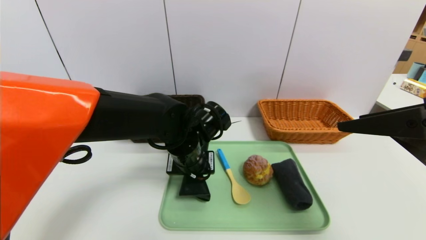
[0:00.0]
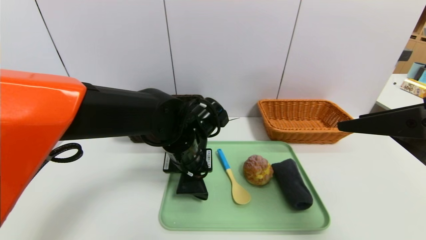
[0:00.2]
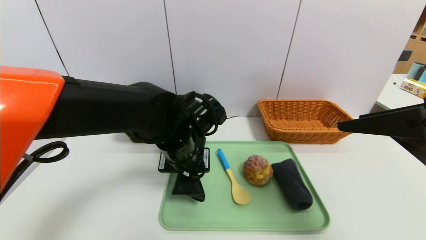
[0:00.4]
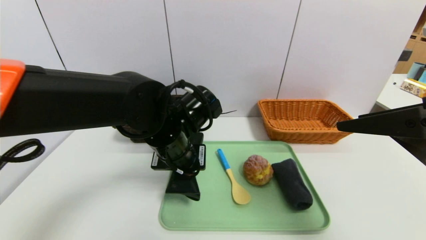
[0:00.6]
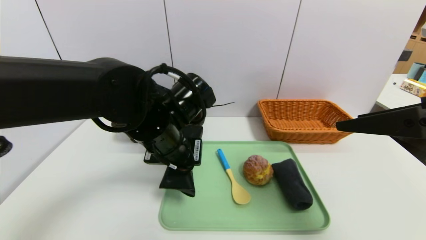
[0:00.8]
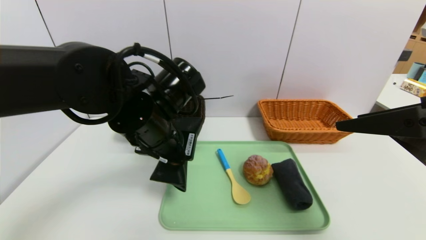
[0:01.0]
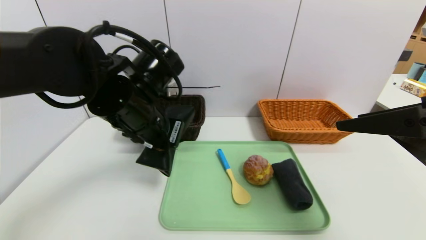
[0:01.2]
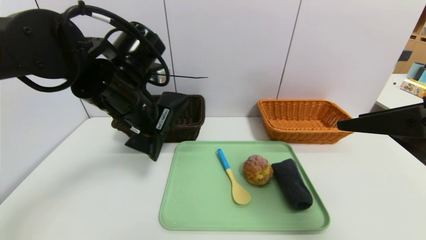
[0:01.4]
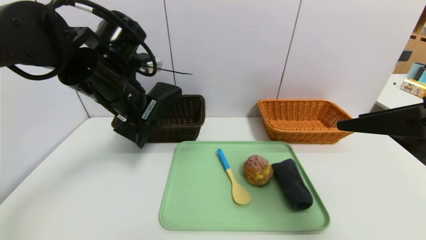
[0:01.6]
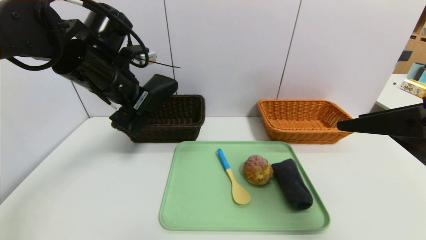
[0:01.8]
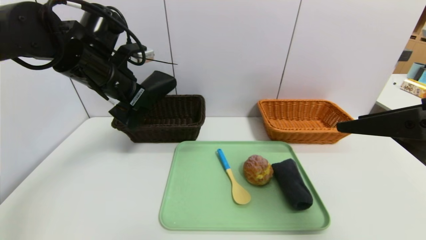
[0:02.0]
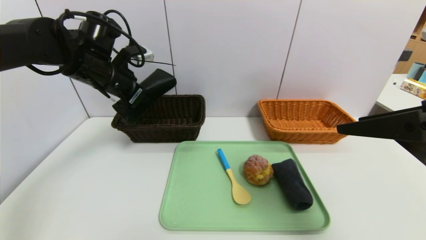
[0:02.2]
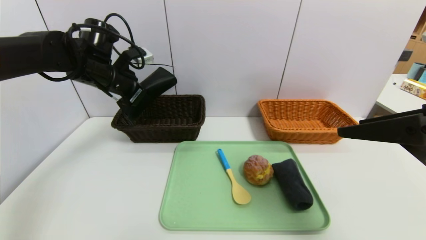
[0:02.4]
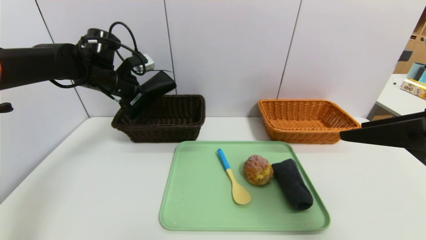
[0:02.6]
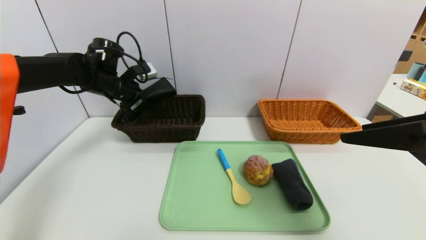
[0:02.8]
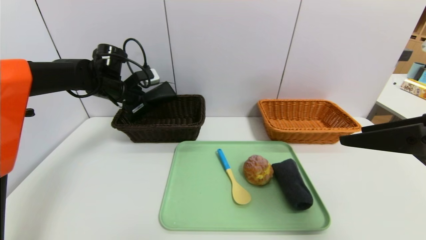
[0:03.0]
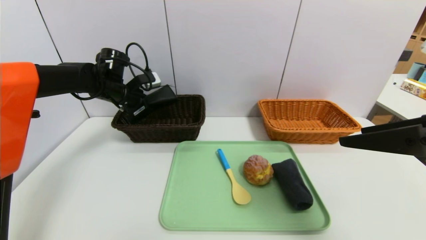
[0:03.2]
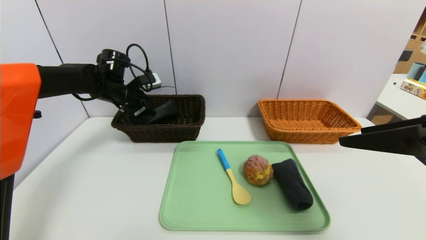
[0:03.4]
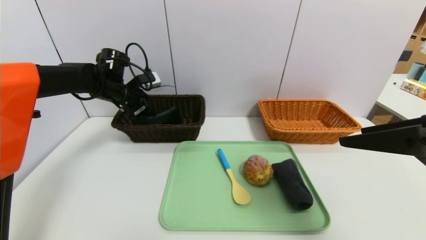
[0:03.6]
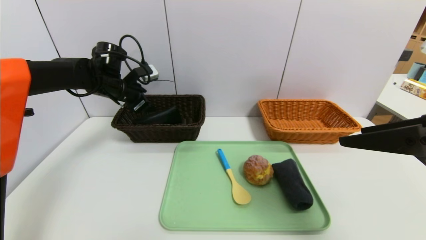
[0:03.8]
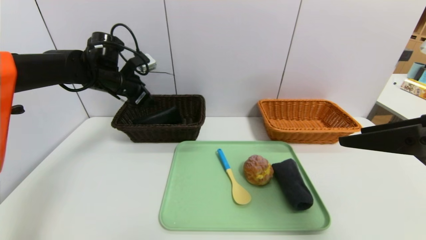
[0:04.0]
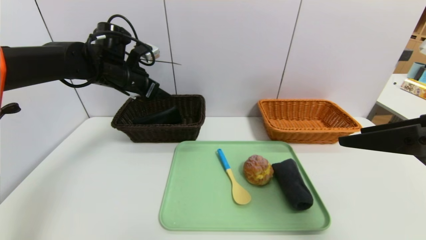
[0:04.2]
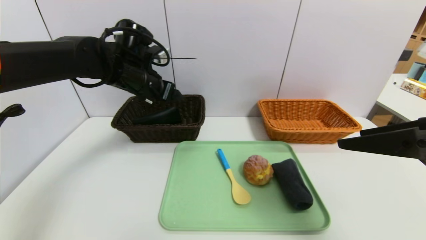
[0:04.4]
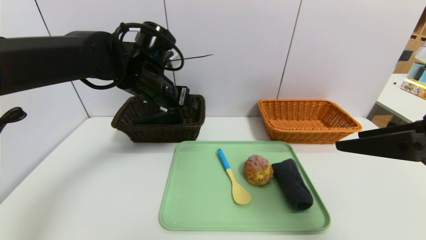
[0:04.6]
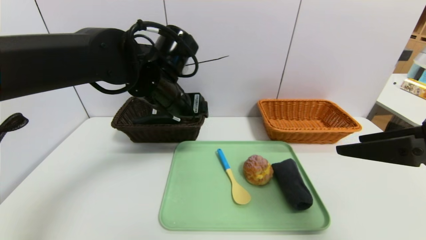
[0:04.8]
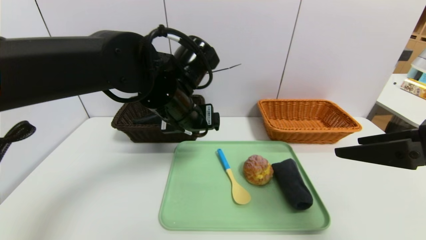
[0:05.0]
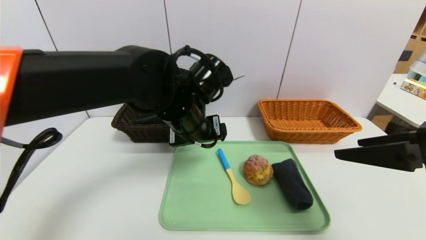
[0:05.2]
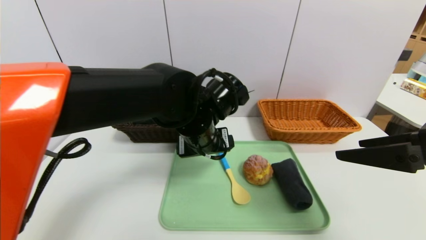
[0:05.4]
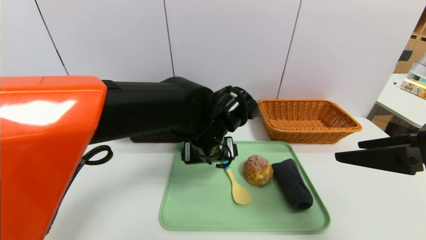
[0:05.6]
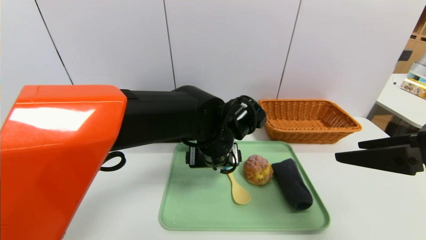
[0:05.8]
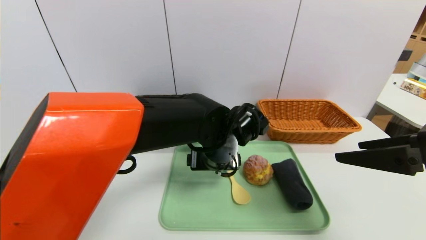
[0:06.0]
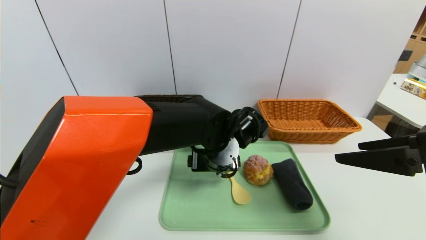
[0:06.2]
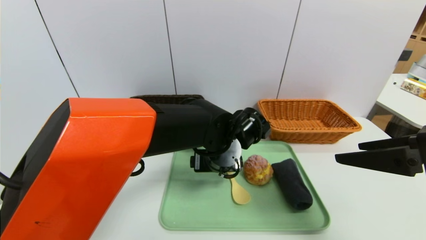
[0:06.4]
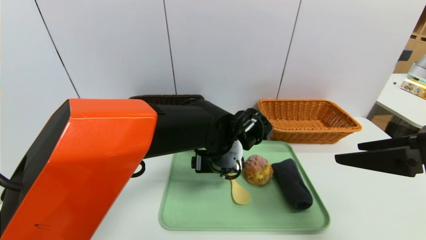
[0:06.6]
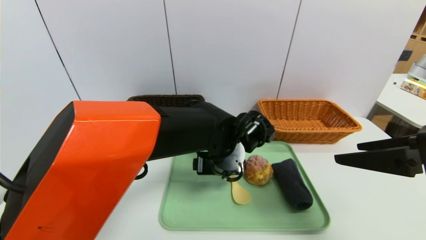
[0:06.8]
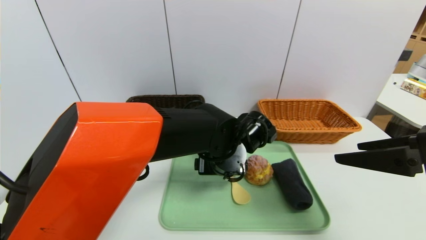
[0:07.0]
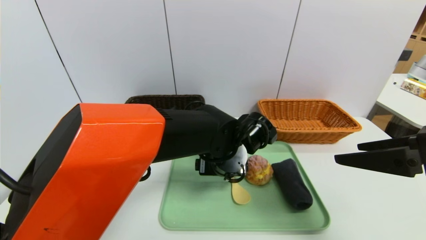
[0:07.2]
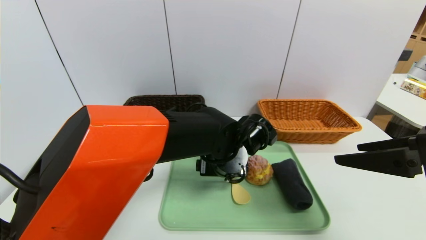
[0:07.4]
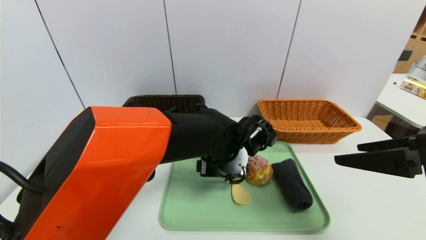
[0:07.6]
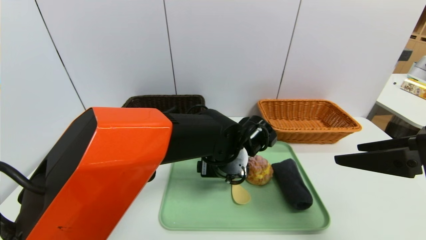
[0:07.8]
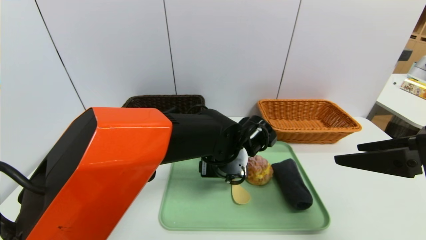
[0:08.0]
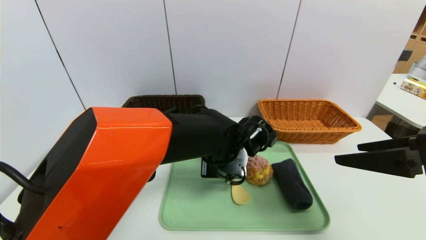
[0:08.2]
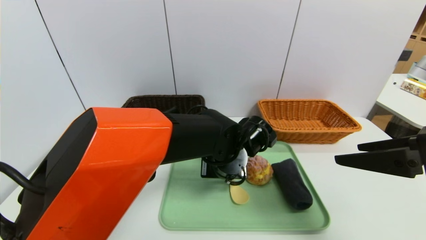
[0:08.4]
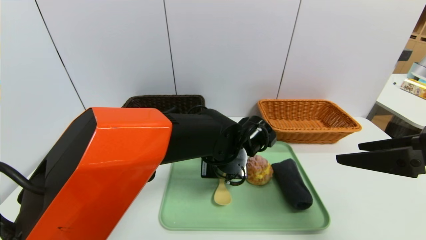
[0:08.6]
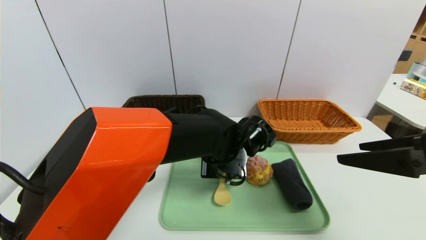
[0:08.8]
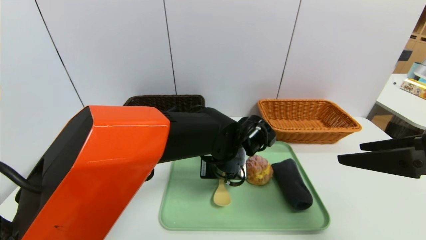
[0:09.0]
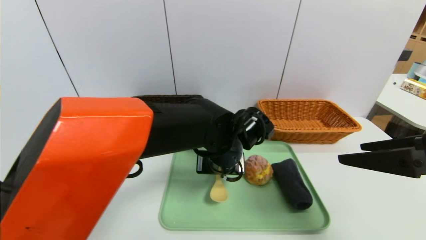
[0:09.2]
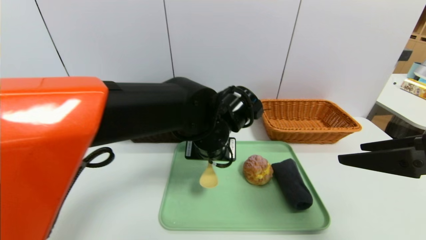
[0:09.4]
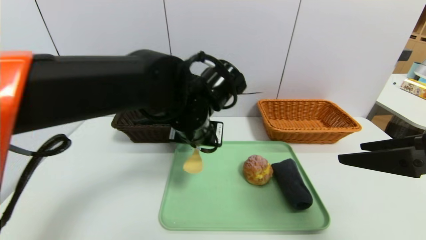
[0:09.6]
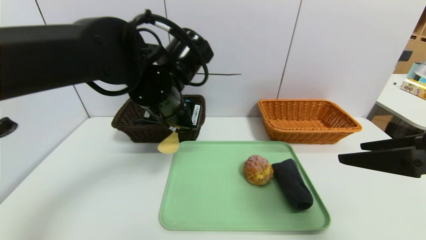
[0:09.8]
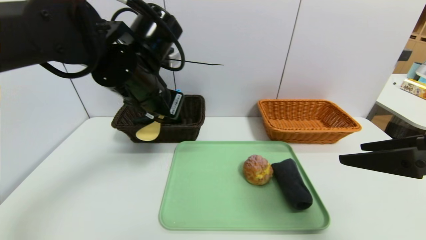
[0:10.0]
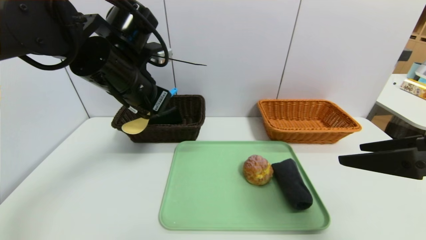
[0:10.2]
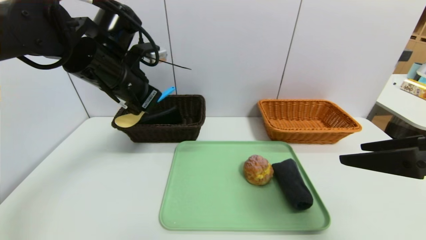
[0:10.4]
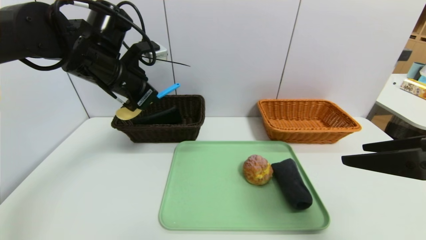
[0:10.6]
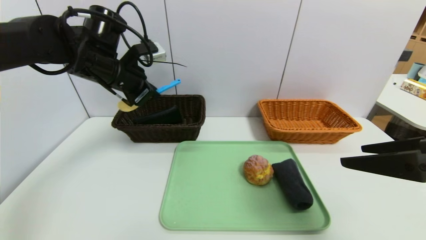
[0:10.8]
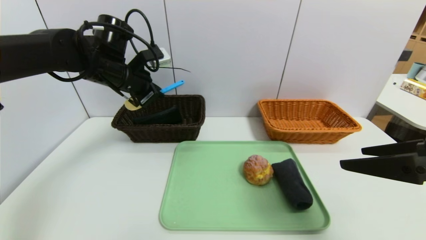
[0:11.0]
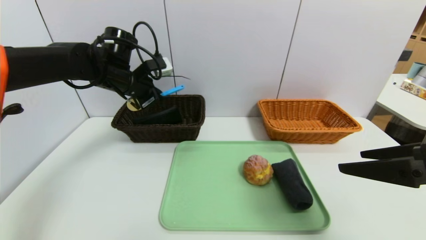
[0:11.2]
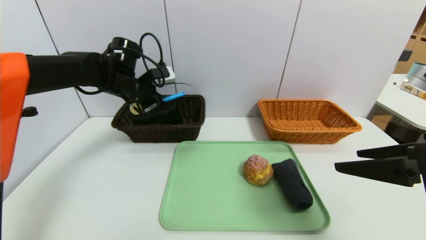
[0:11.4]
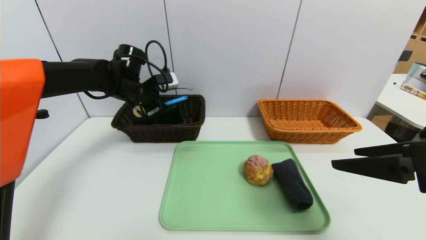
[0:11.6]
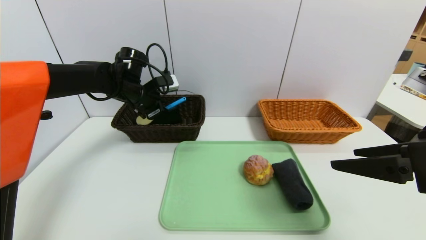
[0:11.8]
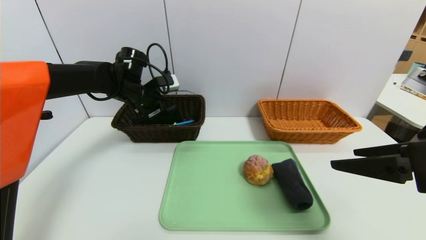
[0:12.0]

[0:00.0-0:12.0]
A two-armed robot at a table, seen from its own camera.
Task of the whole recording: place the food in the right basket with the right gripper, and place the non food items in the left basket with the left gripper.
Step, 0:00.0 to 0:04.0: Grasp the glasses case and put it in the left basket.
0:00.0 to 0:01.6: The left gripper is displaced upward and to the left by some 20 cm.
0:01.6 to 0:03.0: The left gripper travels forward, to the left and downward by about 20 cm.
0:03.0 to 0:04.4: The left gripper moves to the right and backward, approximately 10 cm, and opens its fingers.
0:04.4 to 0:06.0: The left gripper moves to the right, downward and backward, about 20 cm.
0:06.0 to 0:07.6: The grippers make only small movements.
0:07.6 to 0:09.0: The left gripper closes up.
0:09.0 to 0:10.4: The left gripper shifts roughly 25 cm to the left and upward.
0:10.4 to 0:12.0: The left gripper is displaced forward and downward by about 15 cm, and opens its fingers.

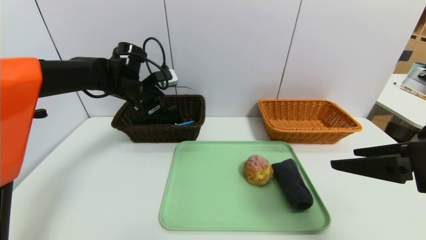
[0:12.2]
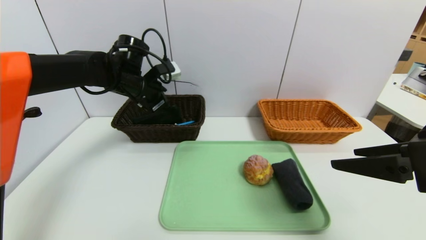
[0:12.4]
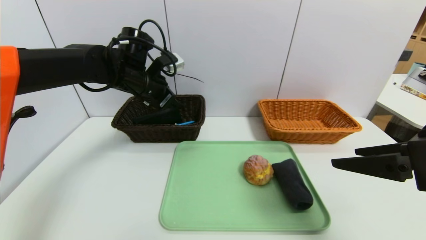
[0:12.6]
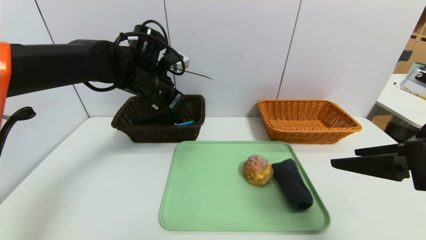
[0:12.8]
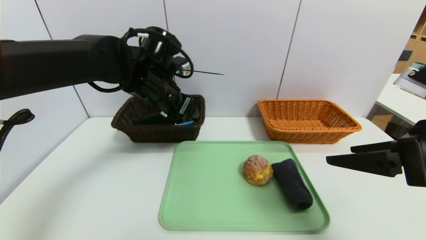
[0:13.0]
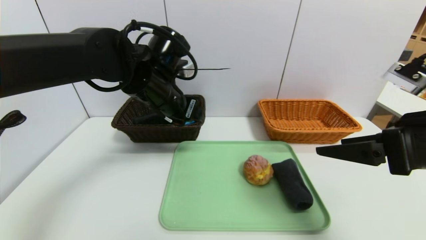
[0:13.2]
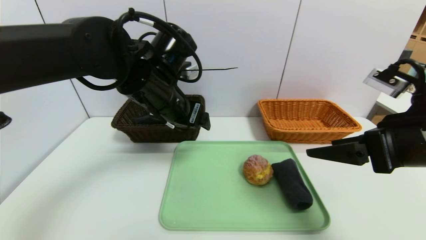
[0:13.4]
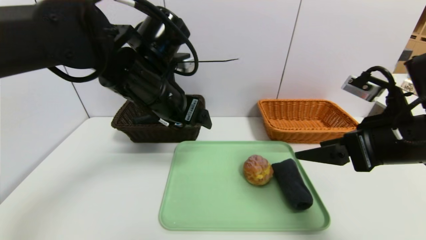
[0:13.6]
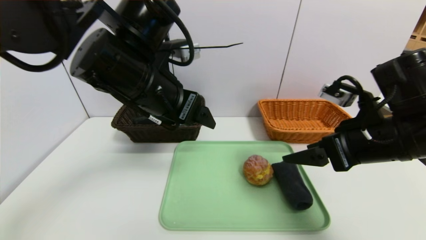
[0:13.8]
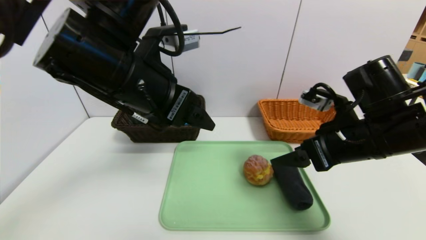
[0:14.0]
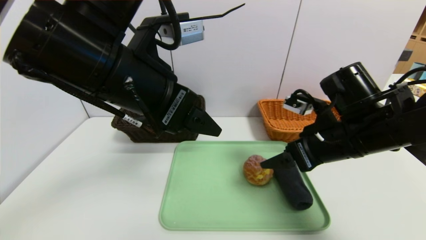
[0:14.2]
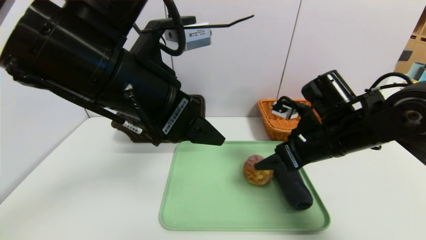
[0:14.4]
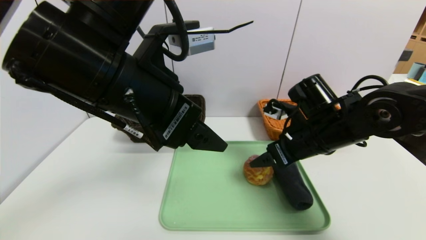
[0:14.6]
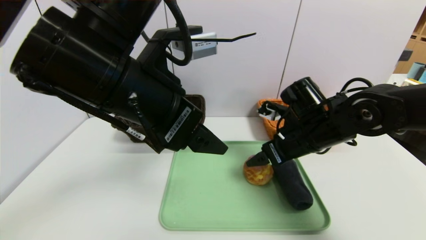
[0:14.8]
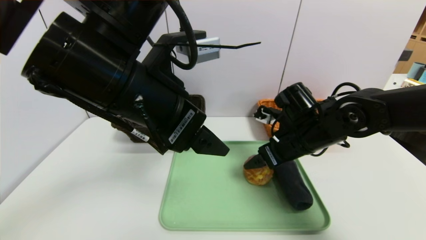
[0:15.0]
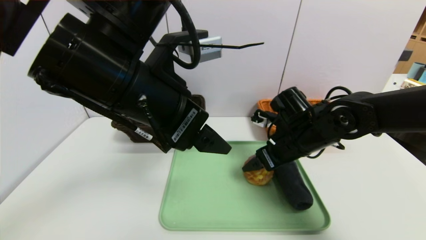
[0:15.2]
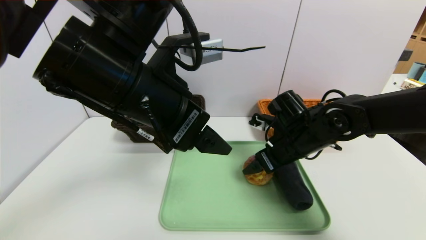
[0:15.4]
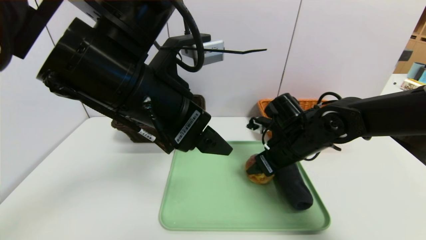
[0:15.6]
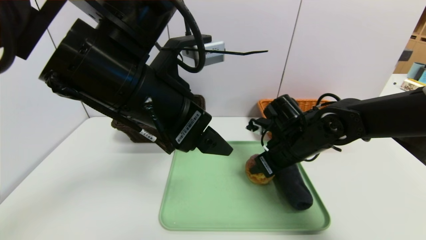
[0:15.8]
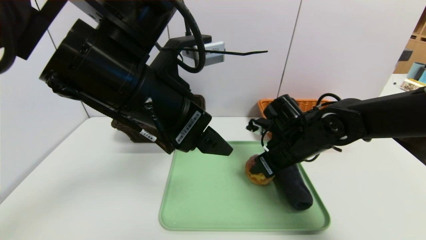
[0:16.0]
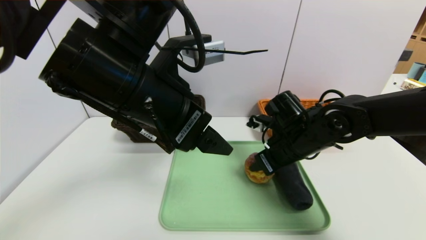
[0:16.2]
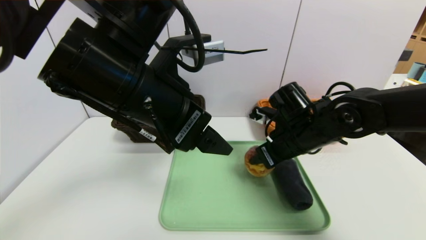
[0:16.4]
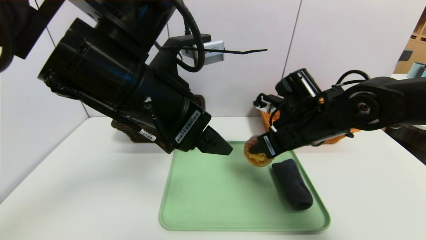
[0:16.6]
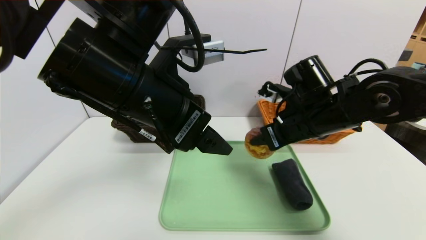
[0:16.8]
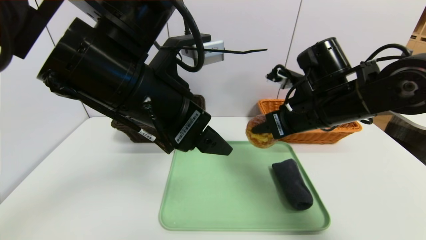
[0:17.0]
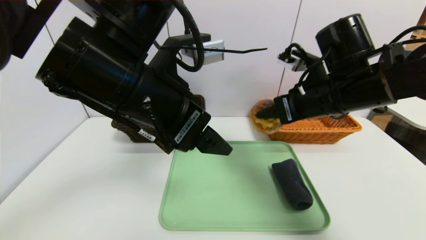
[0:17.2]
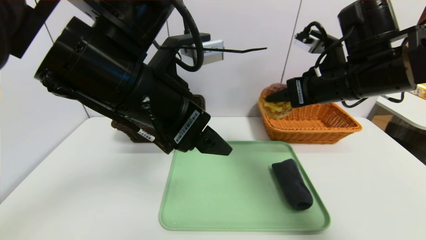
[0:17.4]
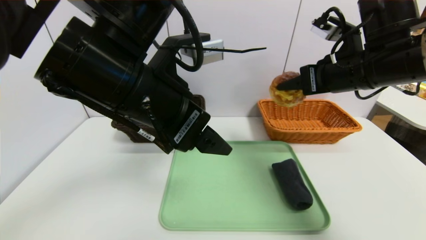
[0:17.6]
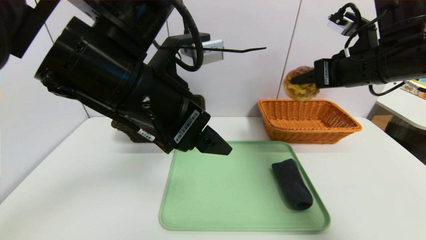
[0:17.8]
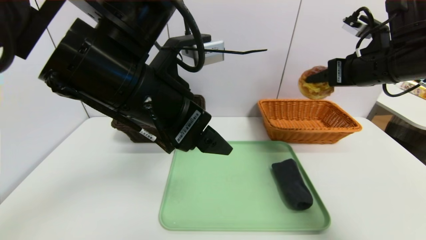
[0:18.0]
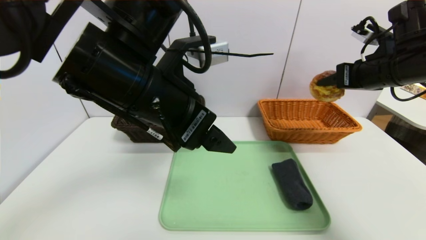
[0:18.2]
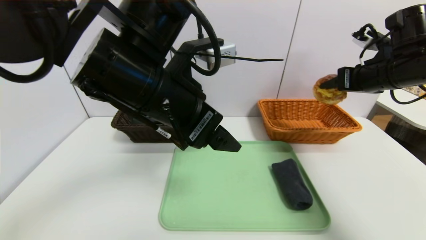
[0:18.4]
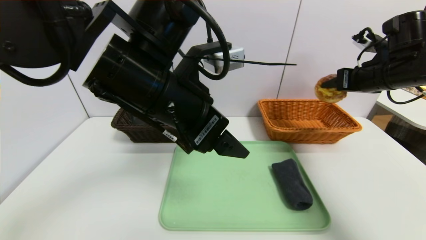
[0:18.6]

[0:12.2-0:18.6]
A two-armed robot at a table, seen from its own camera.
Task of the whole recording: place the food in the right basket with the right gripper, and place the non food items in the left basket with the left gripper.
0:12.2 to 0:13.8: The right gripper travels forward by some 10 cm; the left gripper shifts about 20 cm backward, to the right and upward.
0:13.8 to 0:15.4: The right gripper goes some 15 cm forward, downward and to the left.
0:15.4 to 0:17.0: The right gripper travels upward by roughly 10 cm, and closes its fingers.
0:17.0 to 0:18.6: The right gripper moves to the right and forward, about 15 cm.
